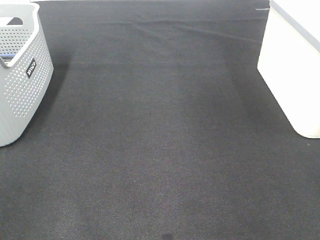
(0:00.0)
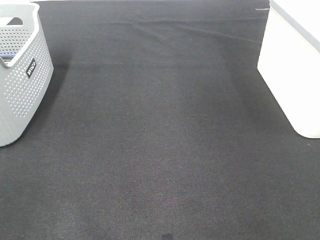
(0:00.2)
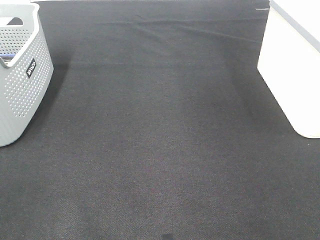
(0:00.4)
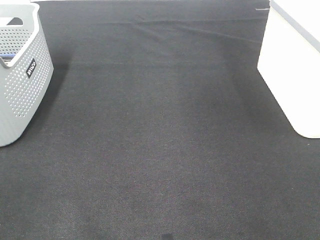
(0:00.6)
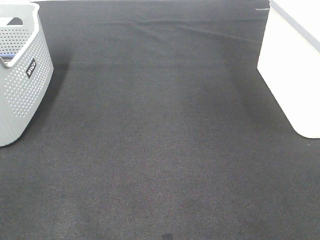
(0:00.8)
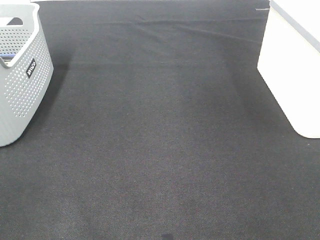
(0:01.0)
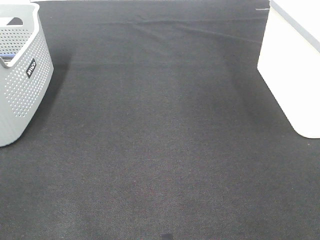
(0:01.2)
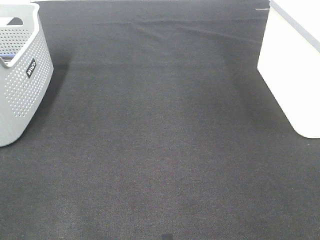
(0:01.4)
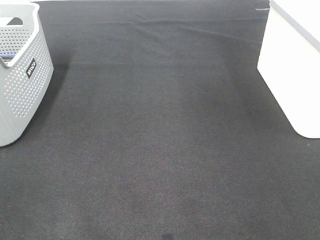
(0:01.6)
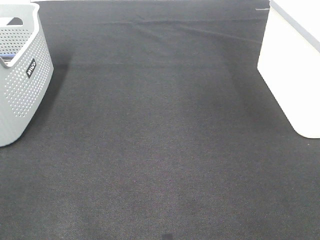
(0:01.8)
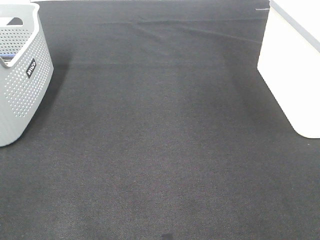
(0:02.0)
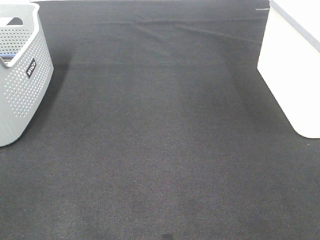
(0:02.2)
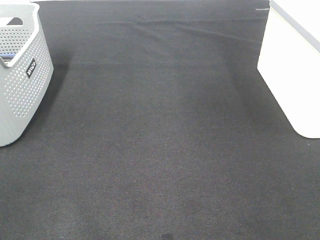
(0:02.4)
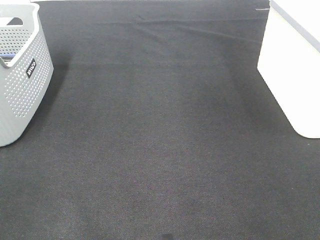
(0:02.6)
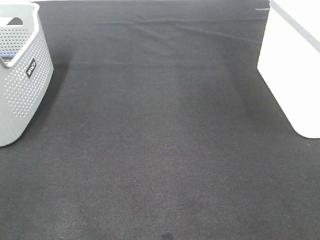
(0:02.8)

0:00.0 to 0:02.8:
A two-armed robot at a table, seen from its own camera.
0:01.4 to 0:02.8: Both grippers stay about where they are.

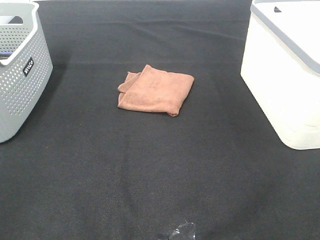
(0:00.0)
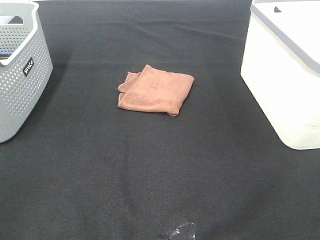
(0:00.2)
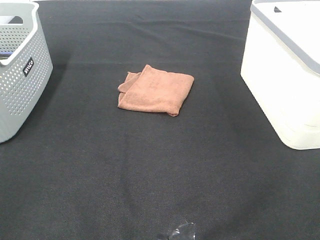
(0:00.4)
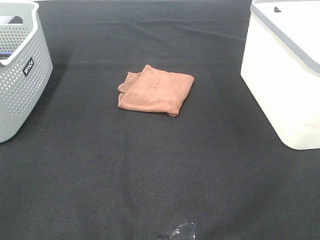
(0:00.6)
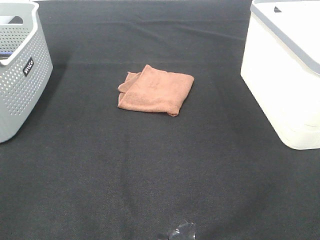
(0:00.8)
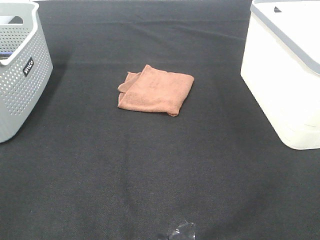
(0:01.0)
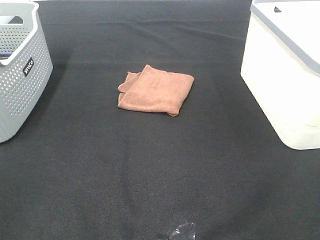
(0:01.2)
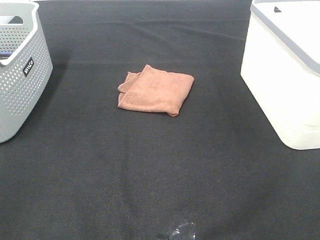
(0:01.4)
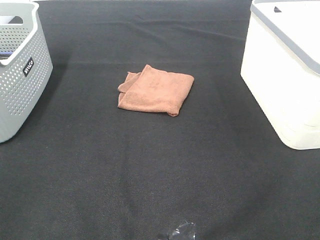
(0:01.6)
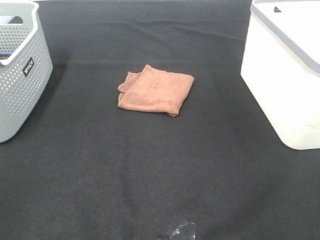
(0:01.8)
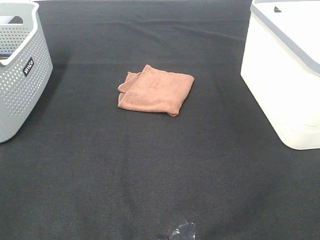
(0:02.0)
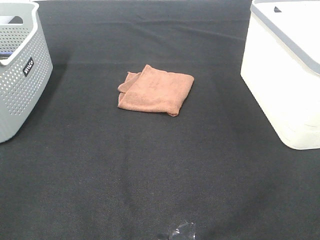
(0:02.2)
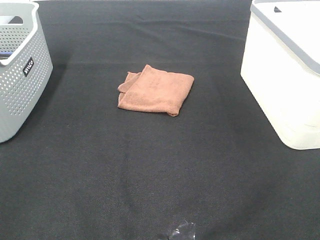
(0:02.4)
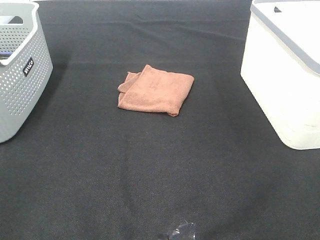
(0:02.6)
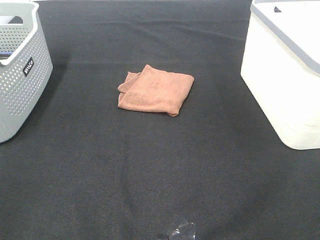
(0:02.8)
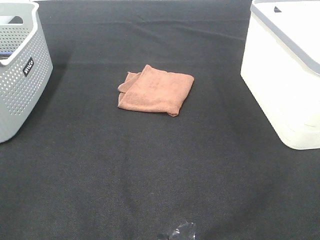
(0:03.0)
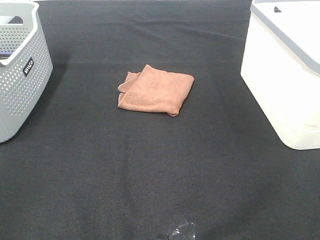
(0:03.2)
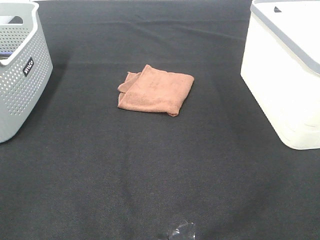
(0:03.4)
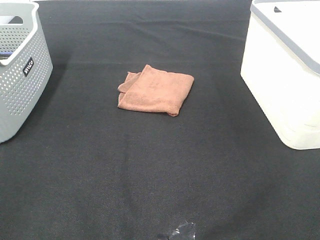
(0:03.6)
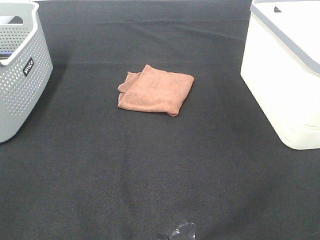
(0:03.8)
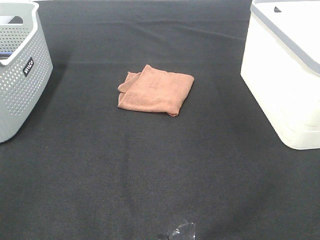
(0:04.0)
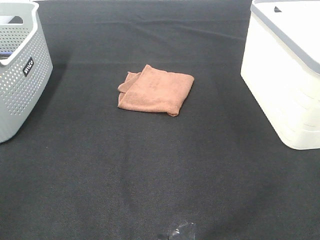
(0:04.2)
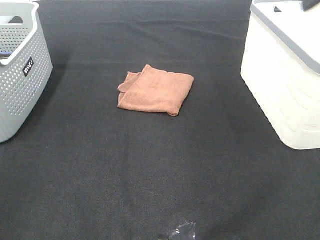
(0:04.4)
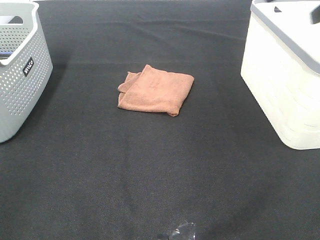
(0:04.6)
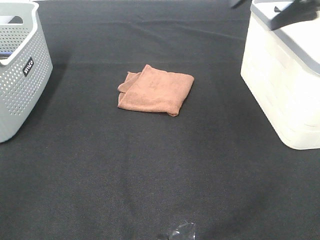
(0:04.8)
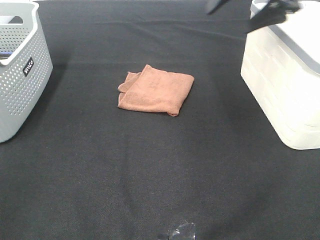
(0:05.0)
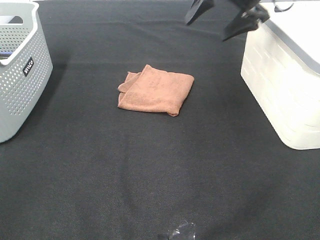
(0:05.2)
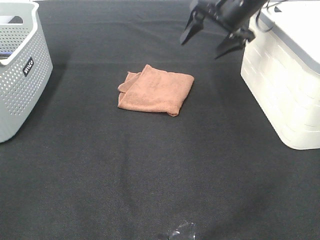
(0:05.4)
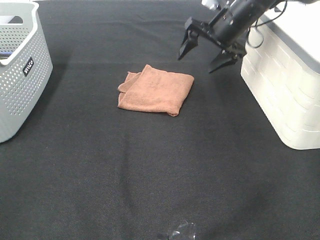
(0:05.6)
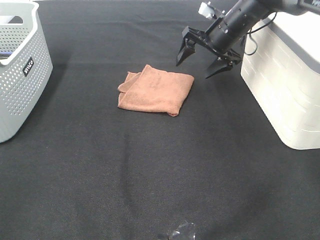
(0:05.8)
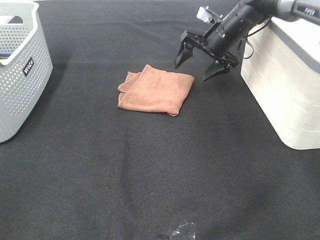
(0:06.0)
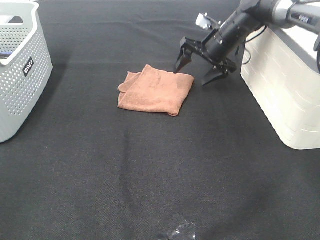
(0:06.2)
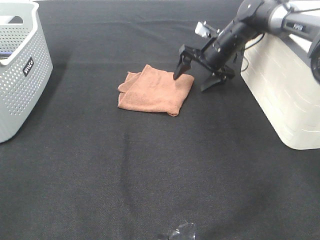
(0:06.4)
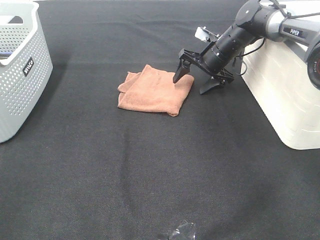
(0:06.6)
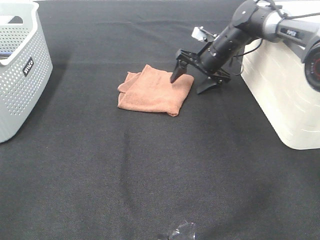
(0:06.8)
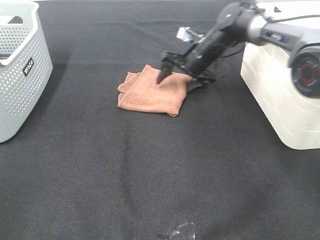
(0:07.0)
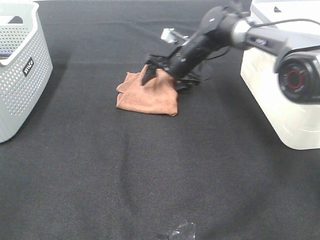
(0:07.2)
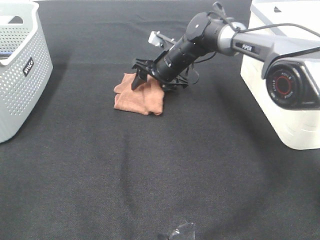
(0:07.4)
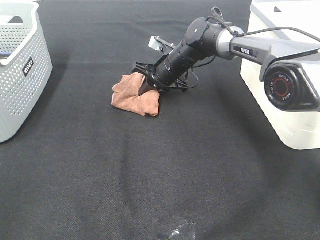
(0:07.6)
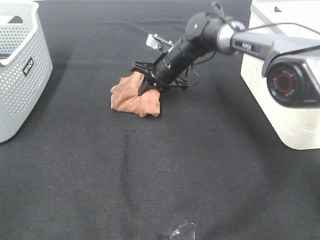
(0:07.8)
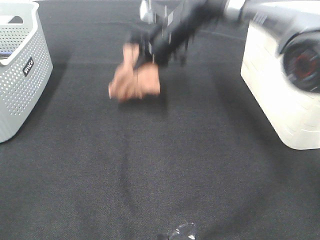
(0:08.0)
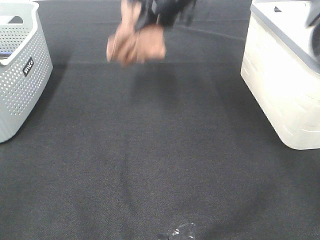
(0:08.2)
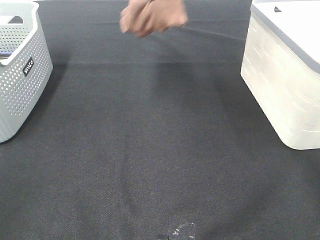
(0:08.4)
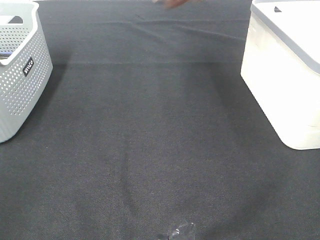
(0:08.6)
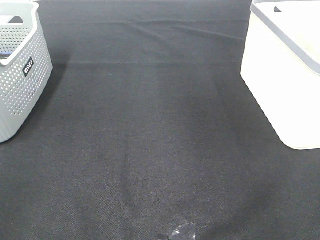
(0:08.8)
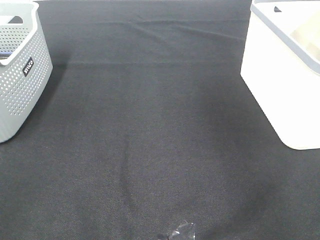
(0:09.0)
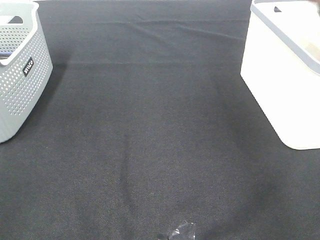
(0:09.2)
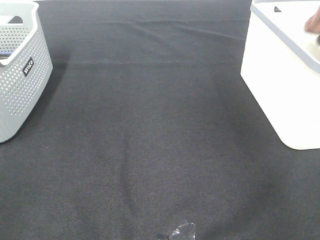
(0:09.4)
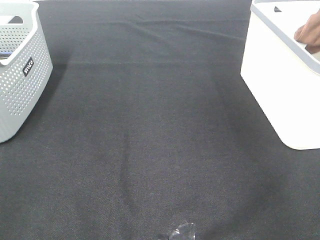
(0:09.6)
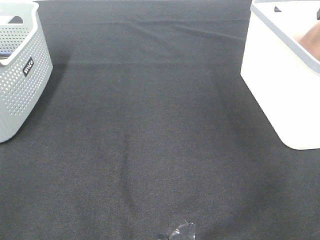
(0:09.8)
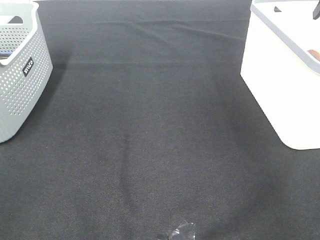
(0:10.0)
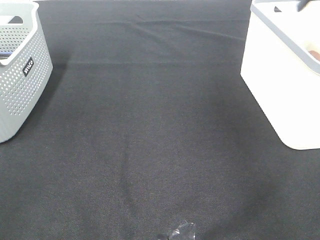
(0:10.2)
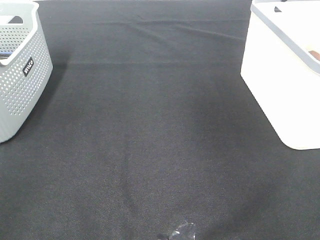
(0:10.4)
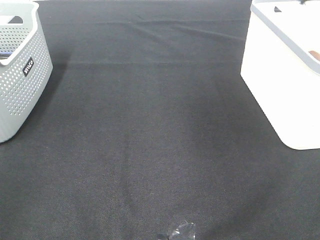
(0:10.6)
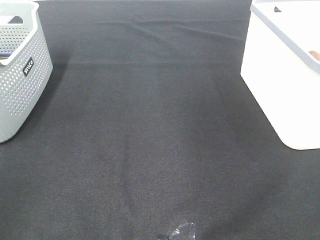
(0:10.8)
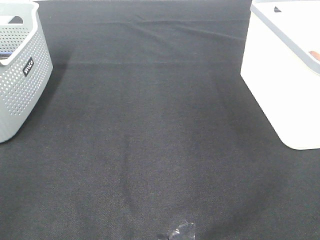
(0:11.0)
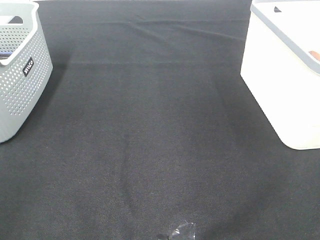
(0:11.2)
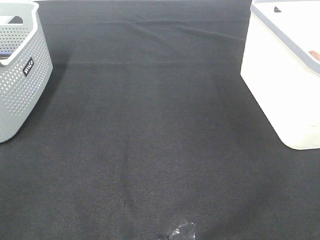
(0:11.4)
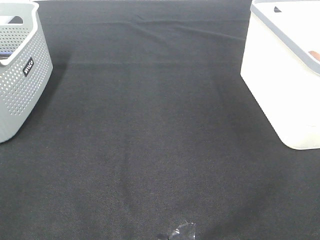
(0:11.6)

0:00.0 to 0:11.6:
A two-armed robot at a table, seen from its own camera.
Step, 0:00.0 to 0:07.6: Right hand: grab the folded brown towel.
Step, 0:07.8 to 0:10.0: Right hand: place the brown towel in right basket.
0:00.0 to 0:02.8: Neither gripper changes place.
0:04.4 to 0:05.8: The right gripper is displaced forward, downward and to the left by roughly 35 cm.
0:05.8 to 0:07.2: The right gripper shifts about 15 cm to the left and downward.
0:07.2 to 0:08.8: The right gripper goes about 40 cm upward and to the right, and closes up.

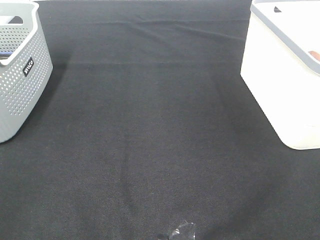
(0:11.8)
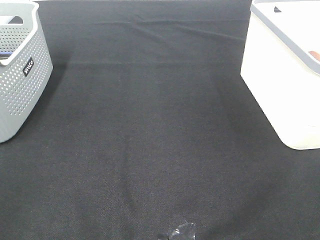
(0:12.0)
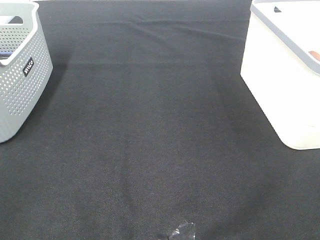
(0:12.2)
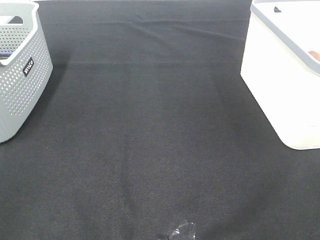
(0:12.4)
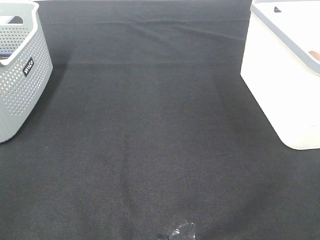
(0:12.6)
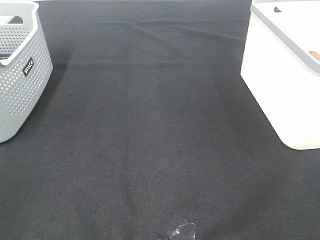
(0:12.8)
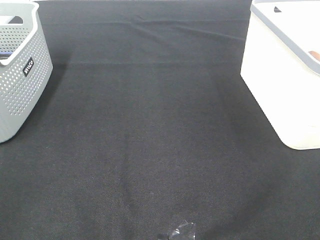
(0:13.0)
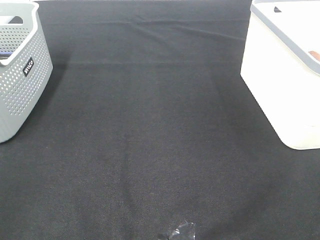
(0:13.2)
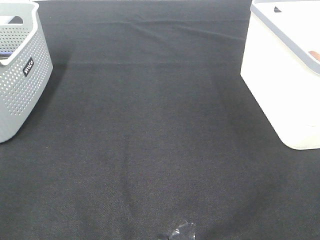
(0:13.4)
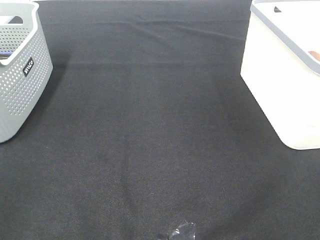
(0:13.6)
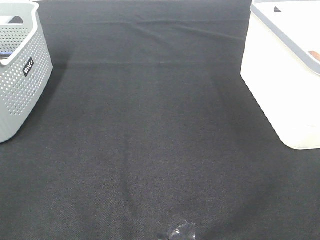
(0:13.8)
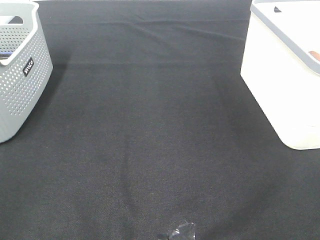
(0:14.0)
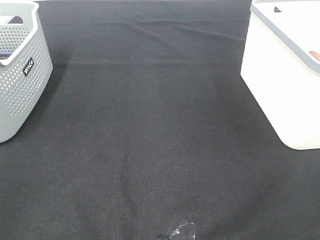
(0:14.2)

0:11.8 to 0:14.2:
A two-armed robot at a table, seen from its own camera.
0:13.0 to 0:14.2: Both grippers stay put.

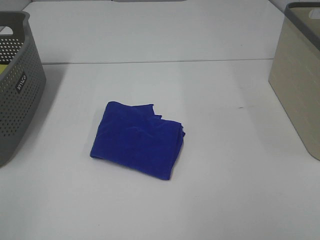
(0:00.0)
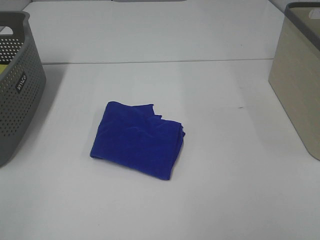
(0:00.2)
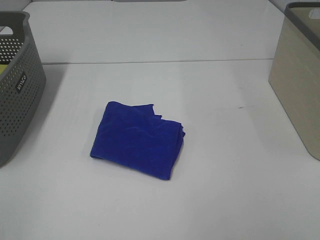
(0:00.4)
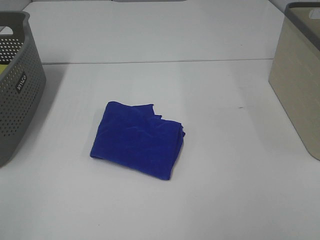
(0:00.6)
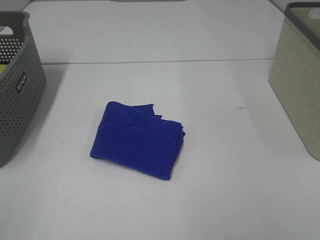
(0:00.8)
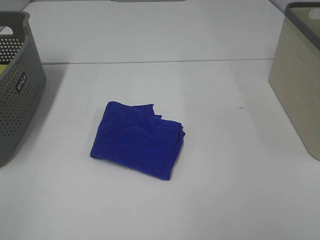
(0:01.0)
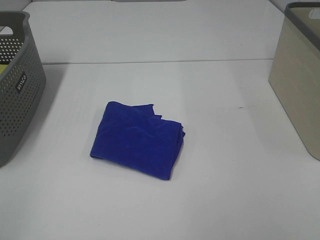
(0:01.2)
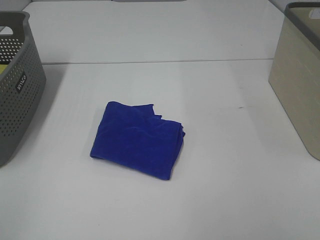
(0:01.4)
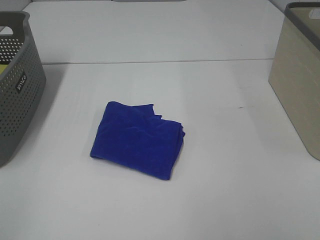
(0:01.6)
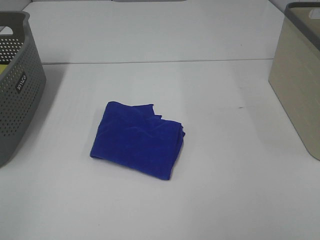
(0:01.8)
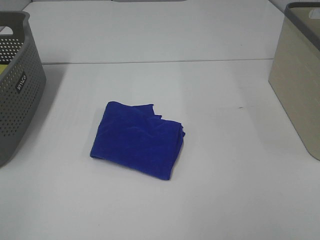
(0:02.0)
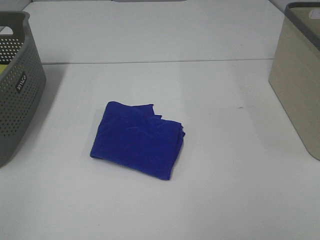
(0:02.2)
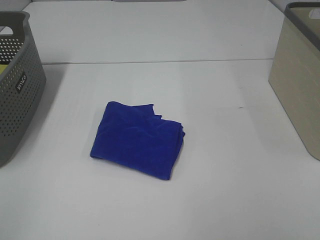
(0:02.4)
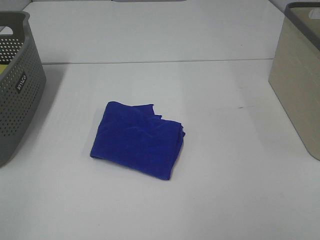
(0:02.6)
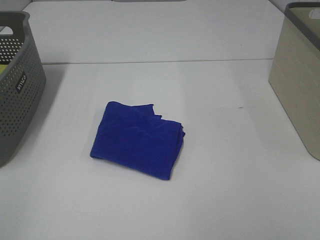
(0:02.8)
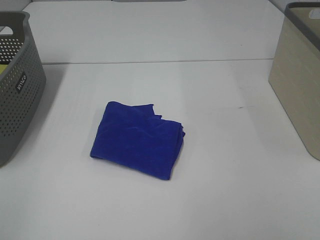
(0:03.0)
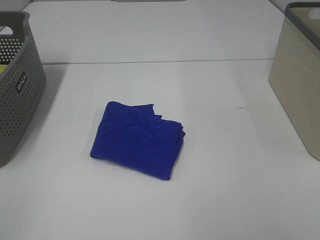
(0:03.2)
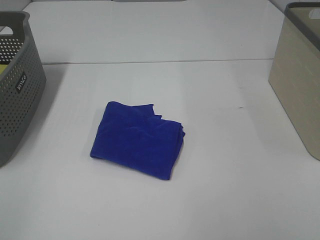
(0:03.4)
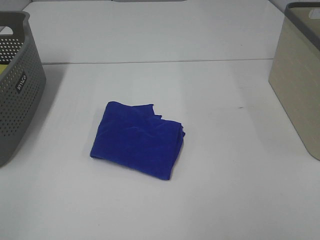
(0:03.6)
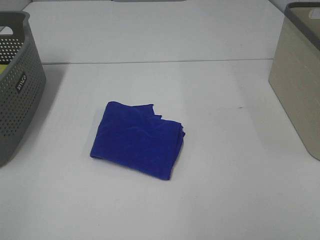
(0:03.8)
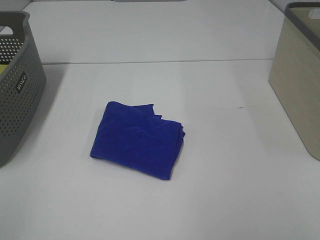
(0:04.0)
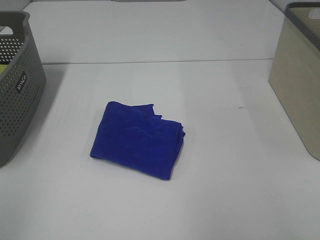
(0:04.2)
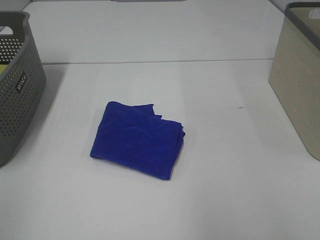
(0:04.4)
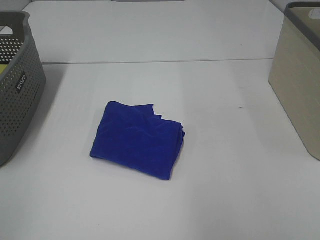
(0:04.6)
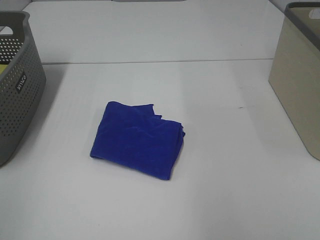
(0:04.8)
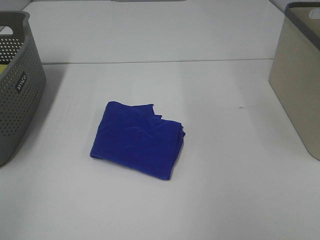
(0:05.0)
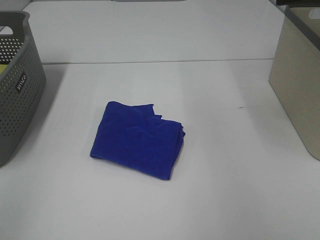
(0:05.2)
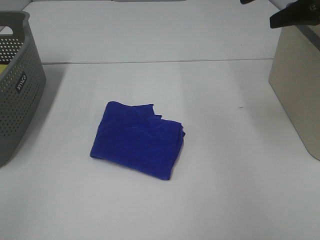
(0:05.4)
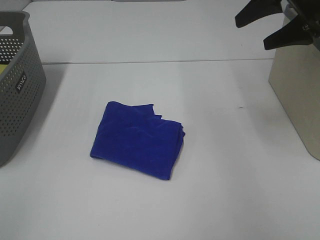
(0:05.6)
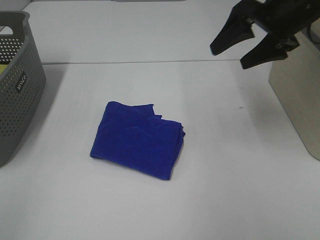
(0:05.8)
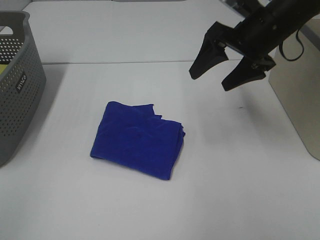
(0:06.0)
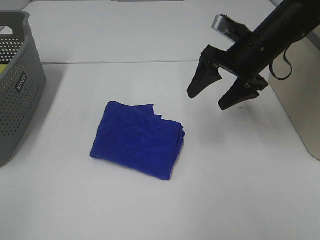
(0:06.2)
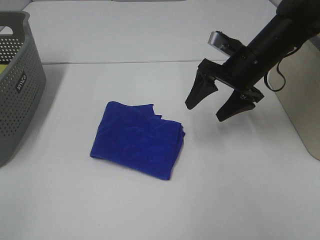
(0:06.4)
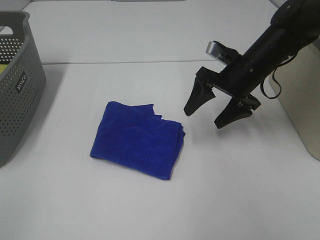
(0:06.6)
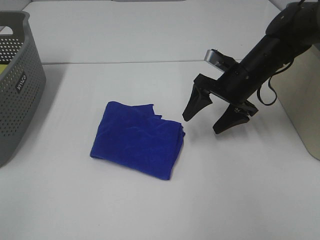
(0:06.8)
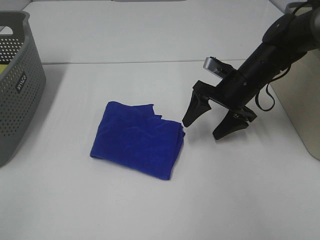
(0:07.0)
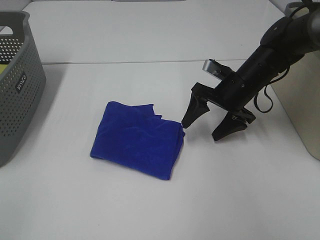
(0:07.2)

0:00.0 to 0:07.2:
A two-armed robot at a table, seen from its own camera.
0:00.0 to 0:02.8: Both grippers stay put.
0:04.4 to 0:05.8: The right gripper moves forward, downward and to the left, approximately 30 cm.
0:05.8 to 0:07.2: The right gripper is displaced downward by roughly 15 cm.
